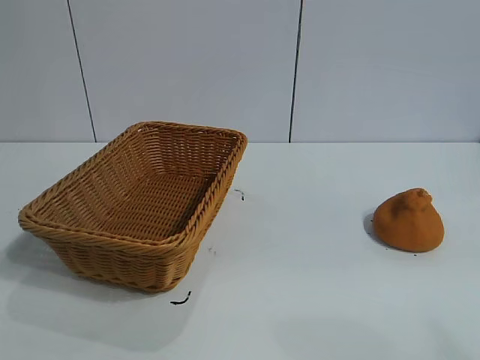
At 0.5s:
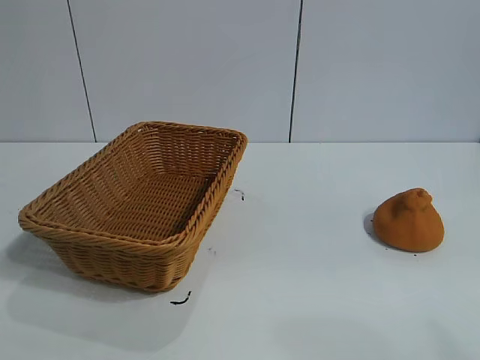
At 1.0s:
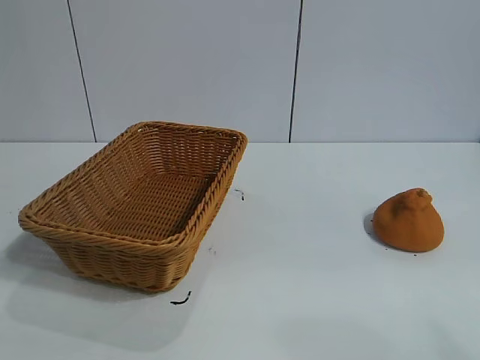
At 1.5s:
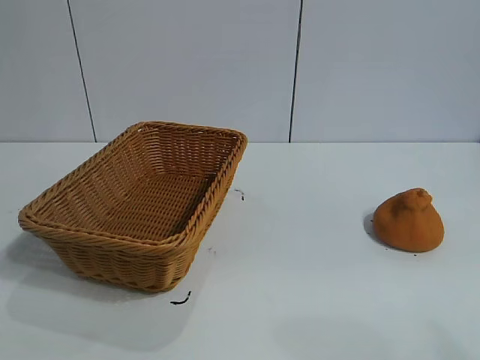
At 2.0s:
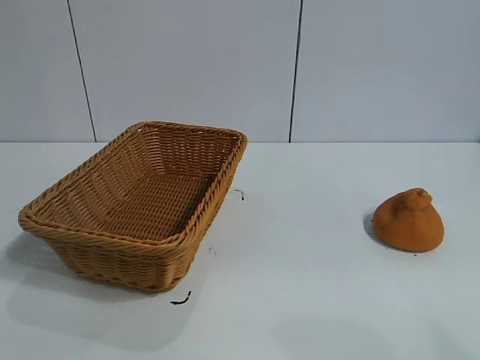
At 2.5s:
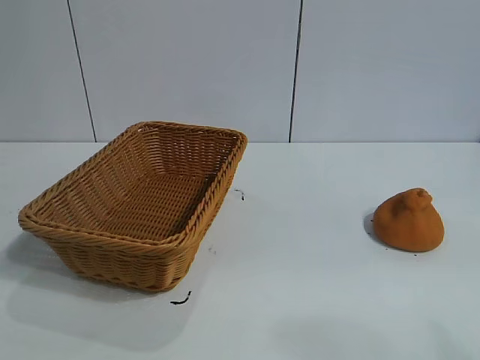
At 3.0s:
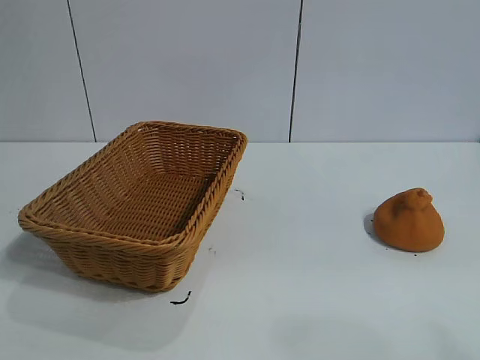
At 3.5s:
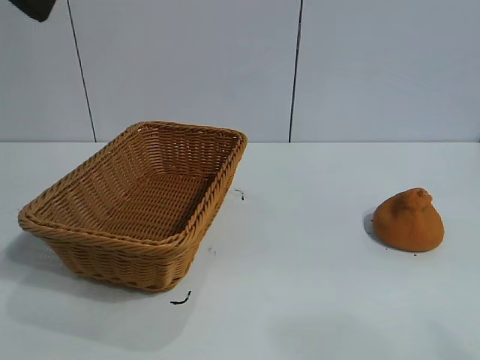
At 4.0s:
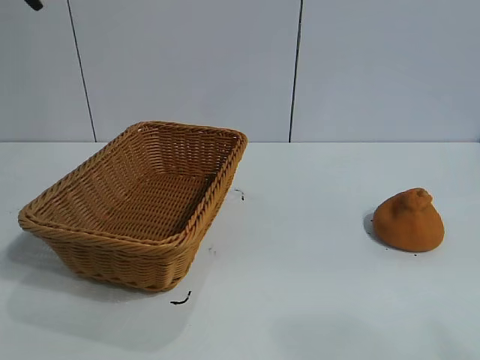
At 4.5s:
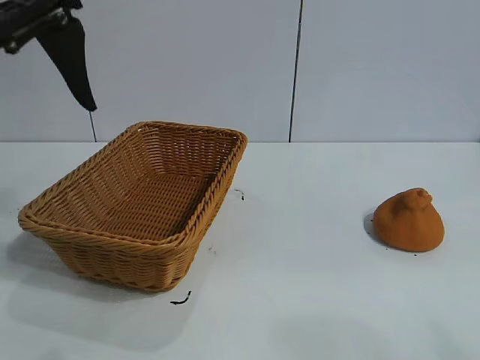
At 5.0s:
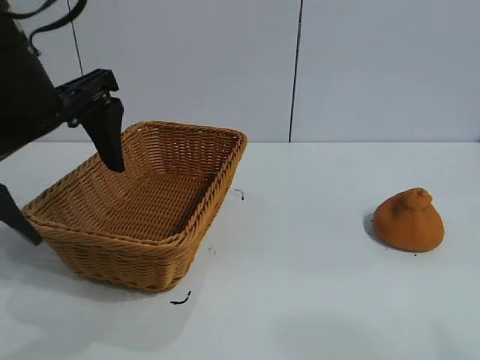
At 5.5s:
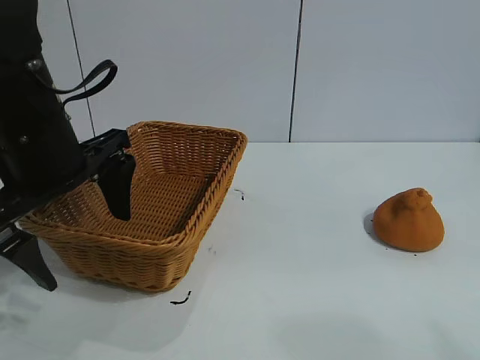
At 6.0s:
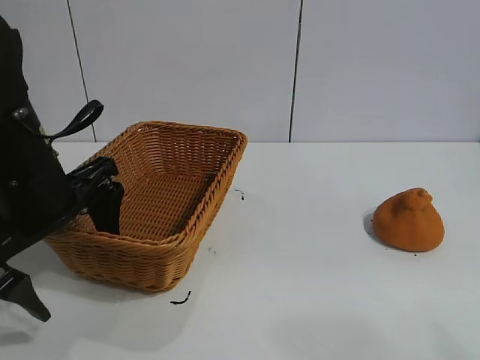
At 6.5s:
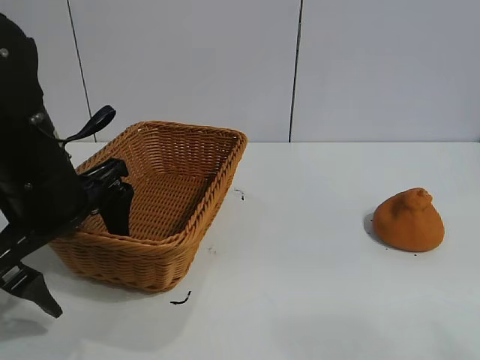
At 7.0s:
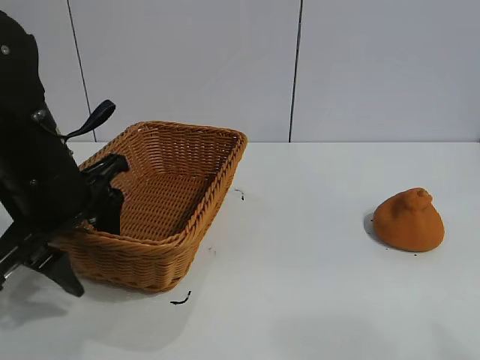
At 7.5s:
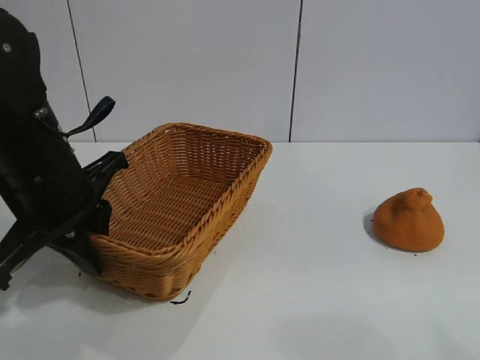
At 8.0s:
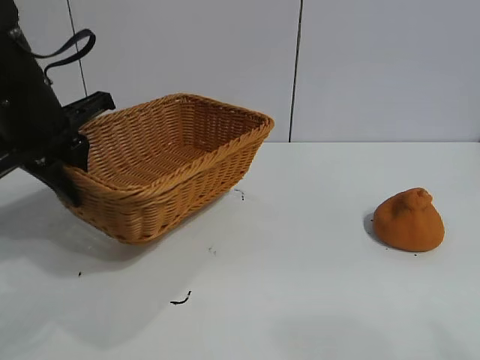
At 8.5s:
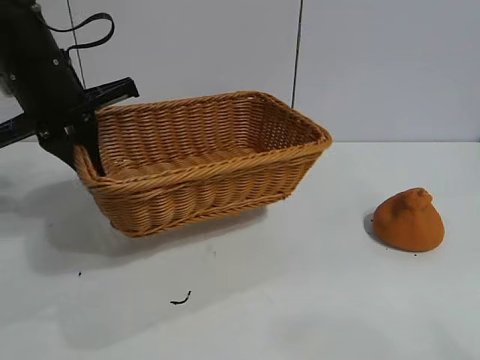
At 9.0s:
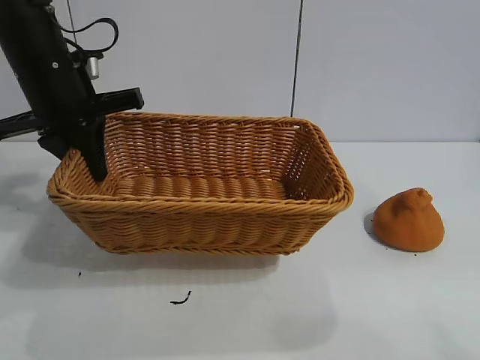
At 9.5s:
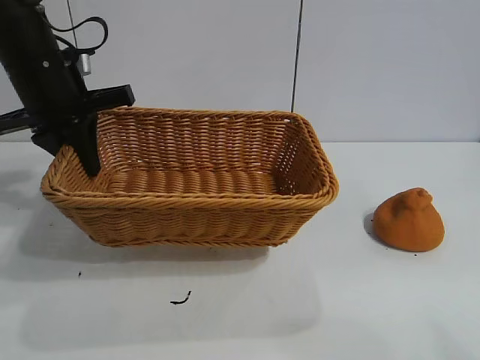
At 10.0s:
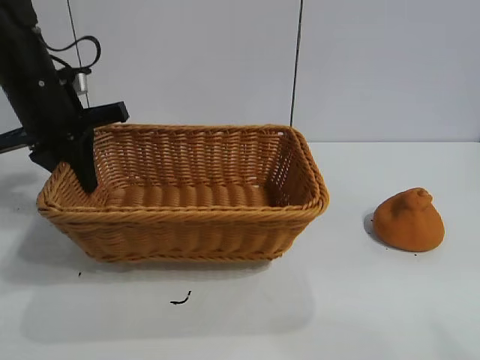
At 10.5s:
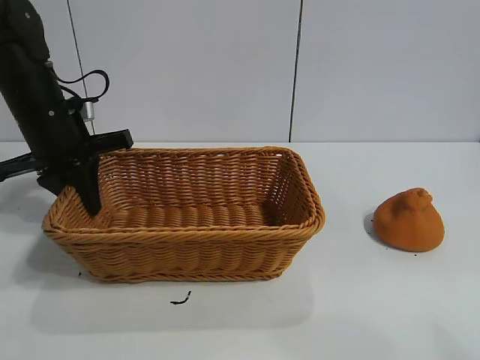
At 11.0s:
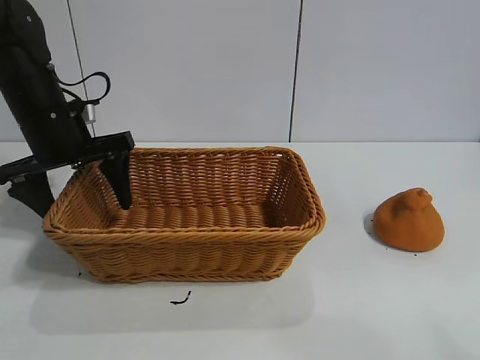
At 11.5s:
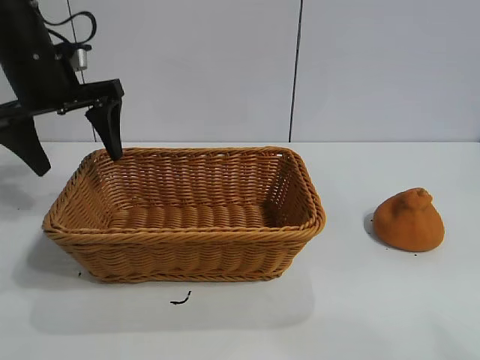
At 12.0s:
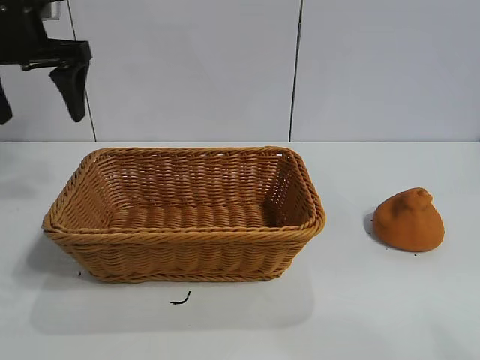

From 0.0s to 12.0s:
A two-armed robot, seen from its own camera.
Task of the whole recording: pick up the orange and put it into the basket.
Step, from 2.0s to 7.0s: Grasp the basket with left gripper.
Step, from 7.5s to 11.0s: Place the basket in the center of view with left gripper.

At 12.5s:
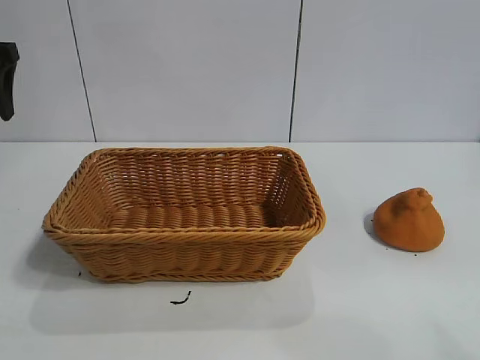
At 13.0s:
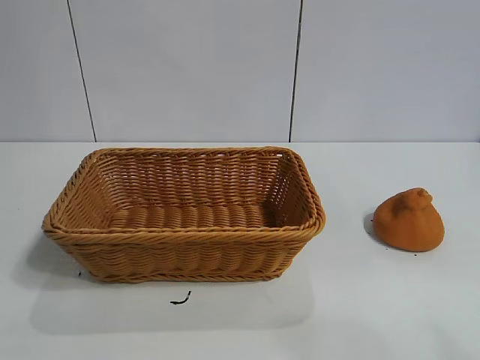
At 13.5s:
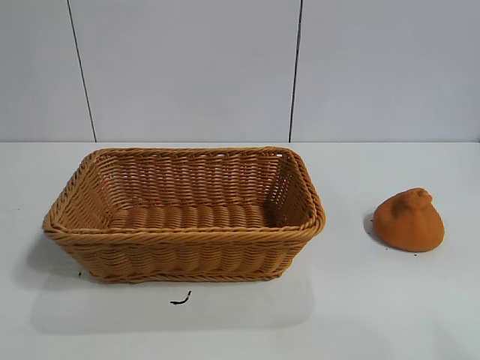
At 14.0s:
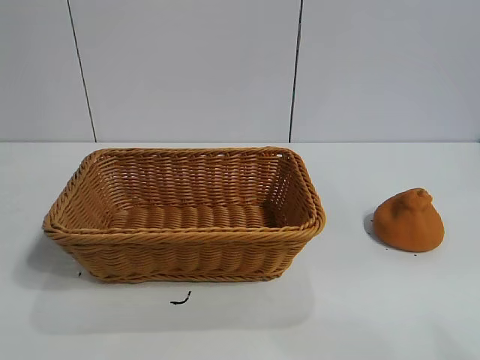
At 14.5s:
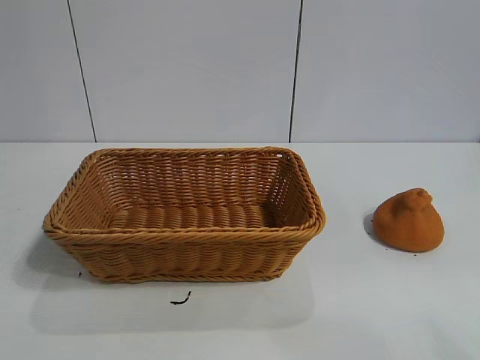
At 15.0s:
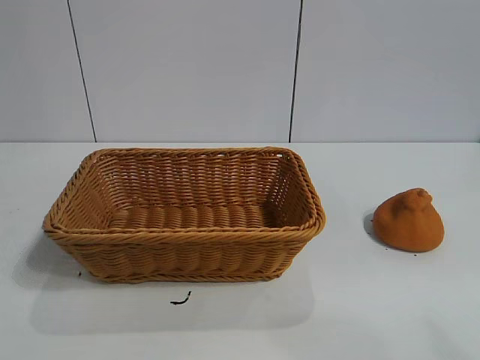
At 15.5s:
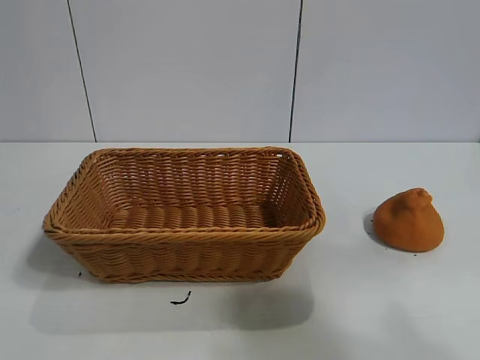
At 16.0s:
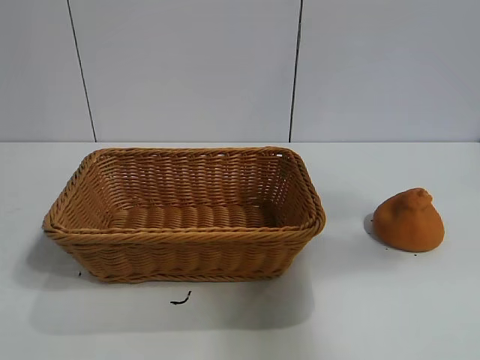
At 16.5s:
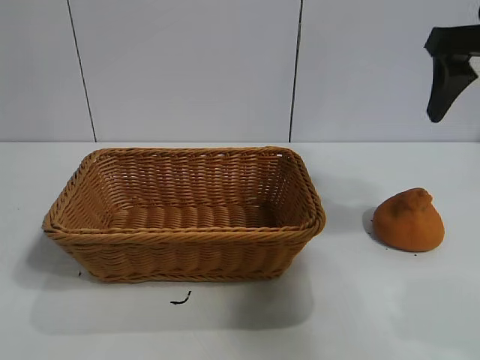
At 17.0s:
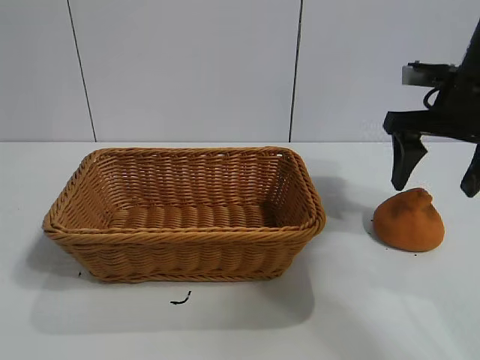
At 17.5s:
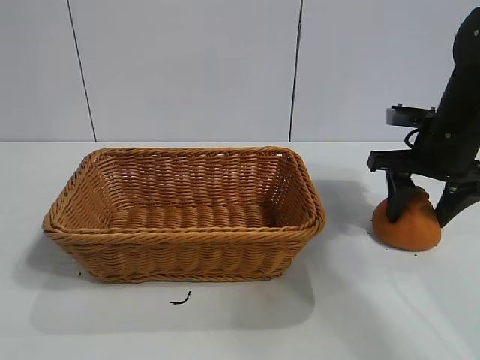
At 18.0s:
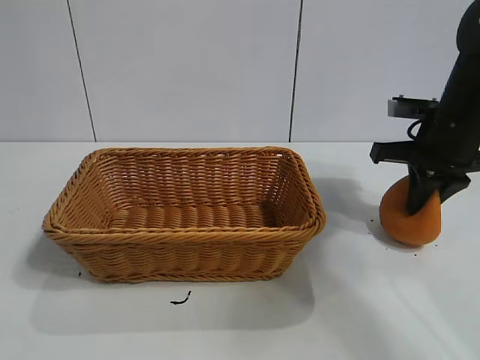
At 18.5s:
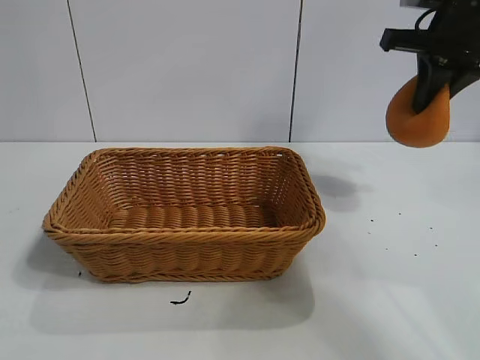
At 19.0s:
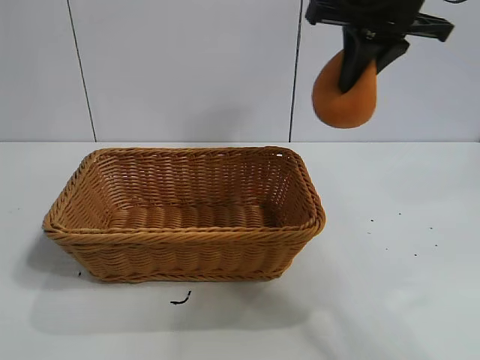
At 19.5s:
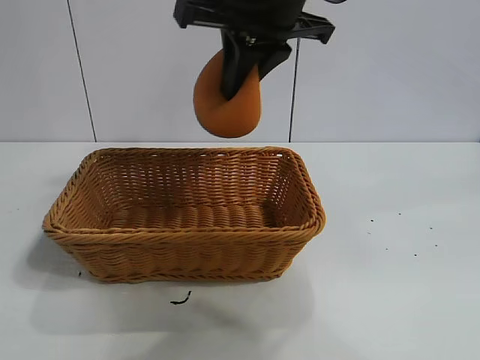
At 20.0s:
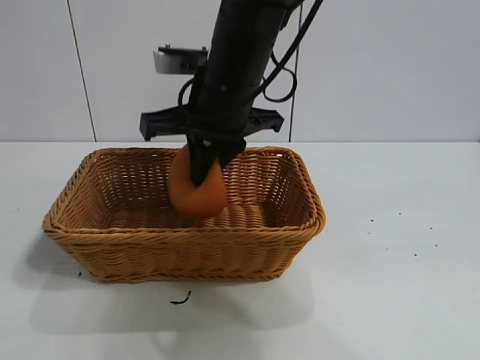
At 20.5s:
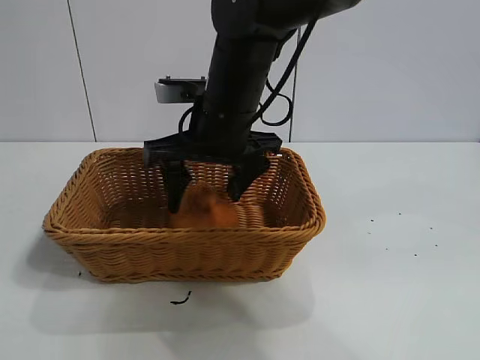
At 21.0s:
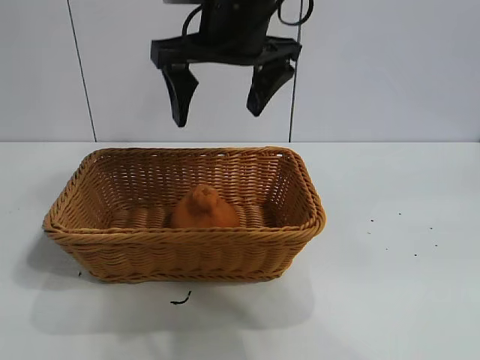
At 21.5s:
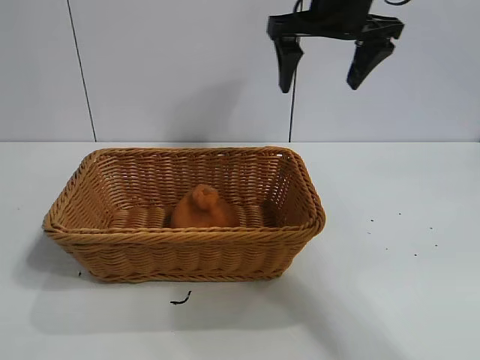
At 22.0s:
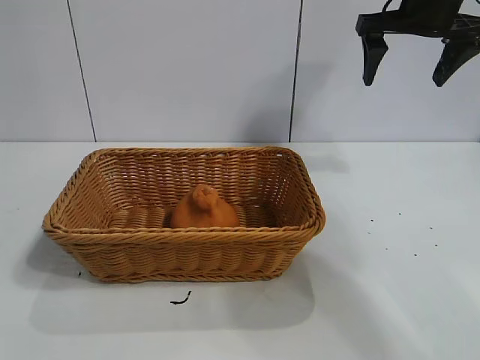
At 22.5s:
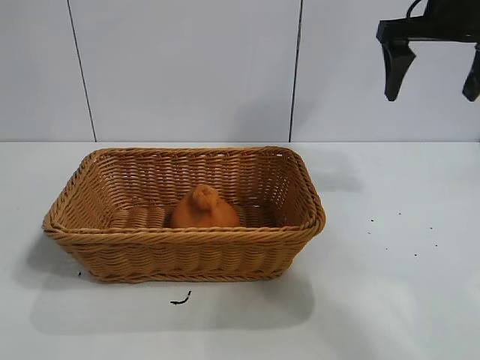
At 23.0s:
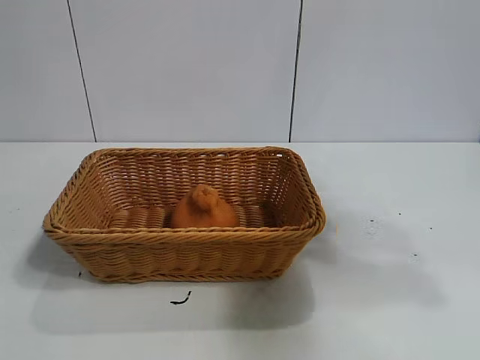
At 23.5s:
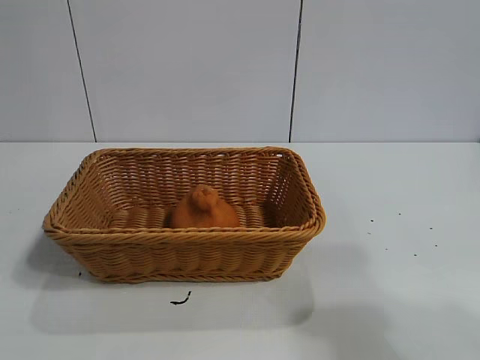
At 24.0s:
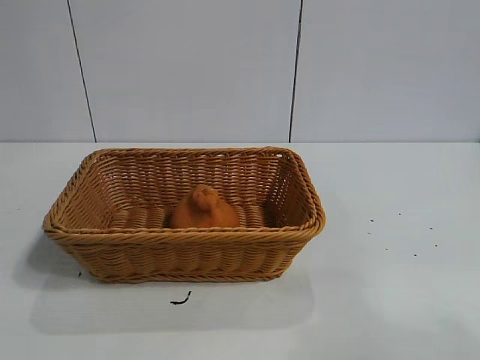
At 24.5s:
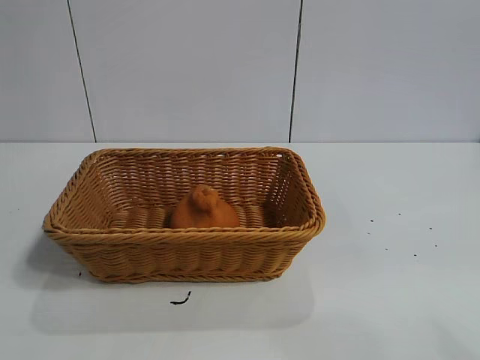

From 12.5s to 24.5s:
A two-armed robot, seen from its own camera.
Task of the whole recording: pick up the orange and put it into the basket.
Step, from 12.5s to 17.5s: Grasp the orange with right gripper.
Step, from 18.0s to 20.5s: Place the orange in the basket with right gripper.

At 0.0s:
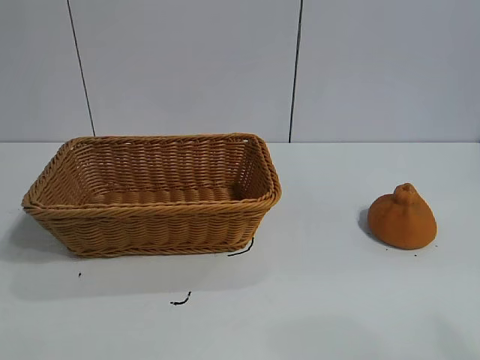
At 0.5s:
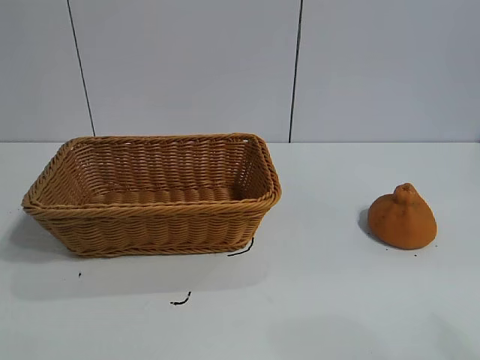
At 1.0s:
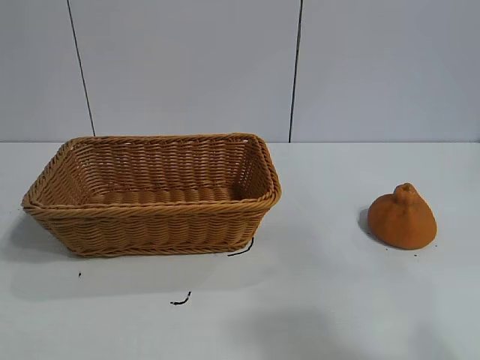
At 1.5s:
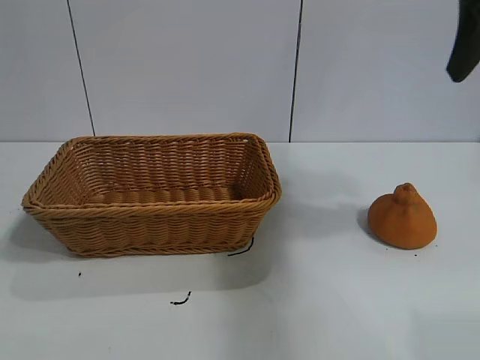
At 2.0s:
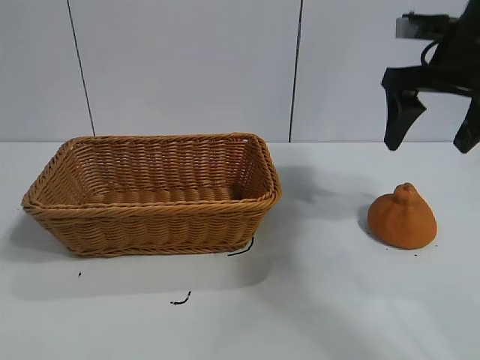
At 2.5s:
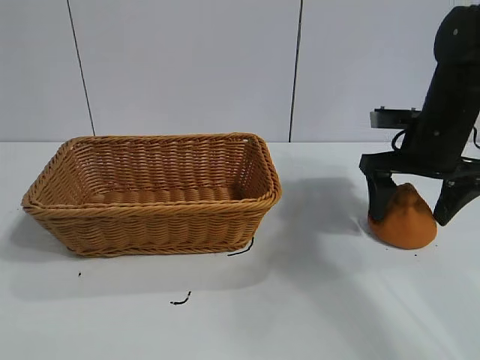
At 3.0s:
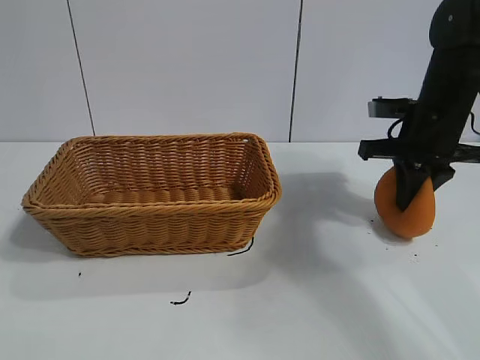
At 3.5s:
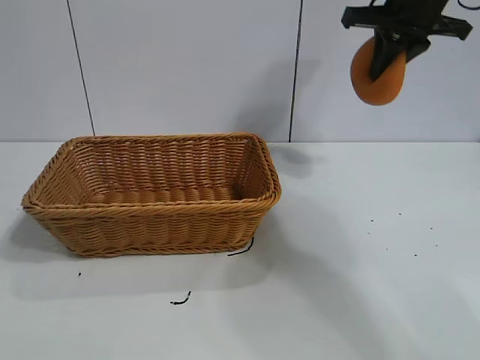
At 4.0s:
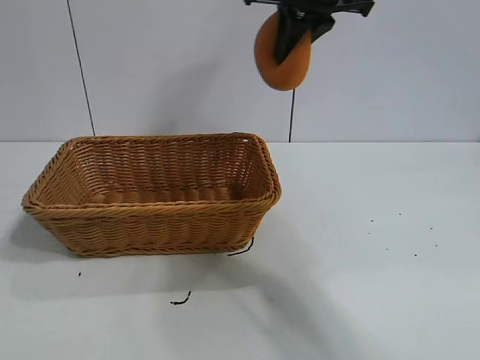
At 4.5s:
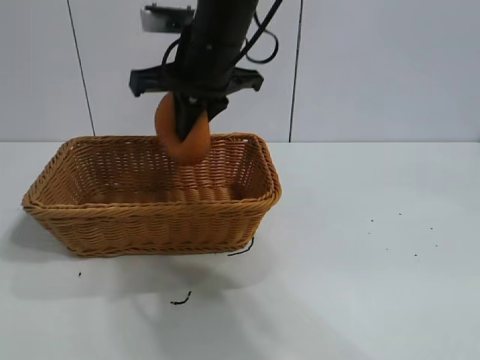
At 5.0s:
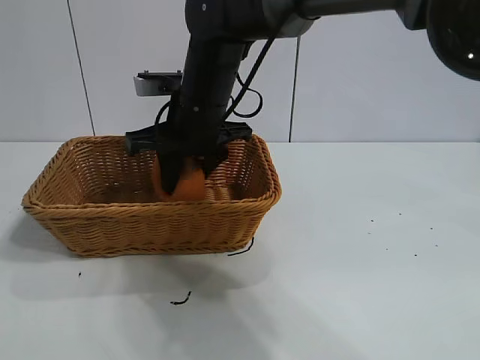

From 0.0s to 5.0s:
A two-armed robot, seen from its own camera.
Task of the whole recording: pick up the orange and put it into the basket.
Step, from 1.0s to 3.0s: Grasp the orange with right gripper.
